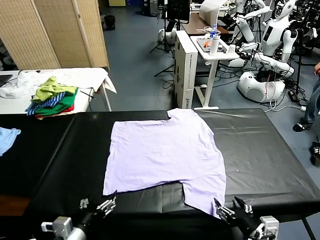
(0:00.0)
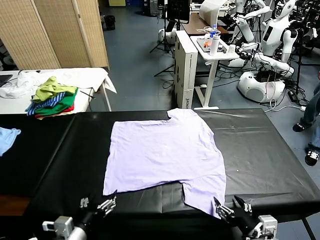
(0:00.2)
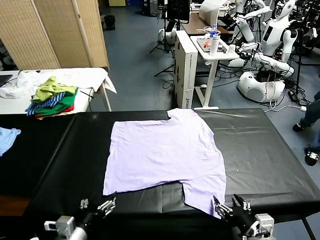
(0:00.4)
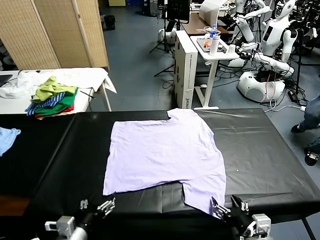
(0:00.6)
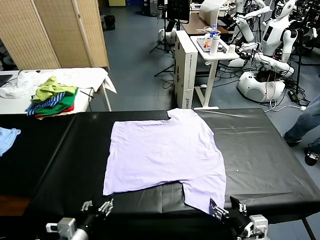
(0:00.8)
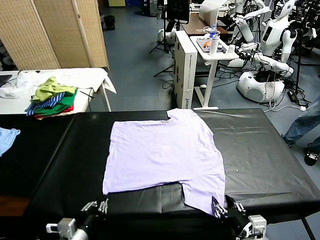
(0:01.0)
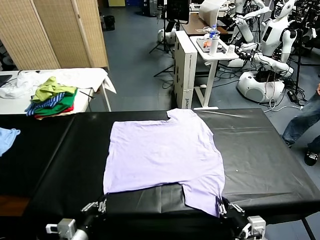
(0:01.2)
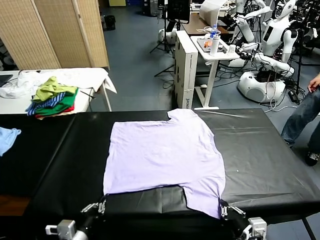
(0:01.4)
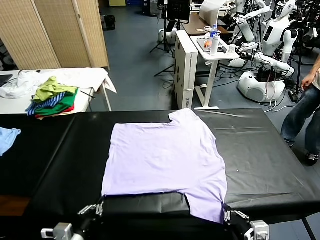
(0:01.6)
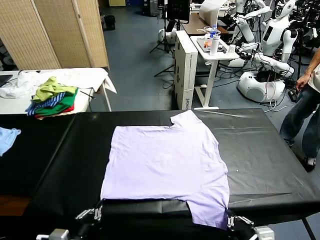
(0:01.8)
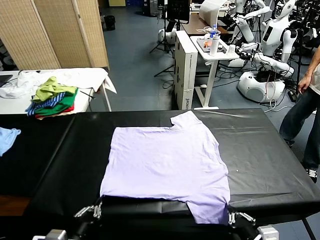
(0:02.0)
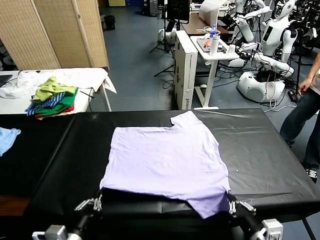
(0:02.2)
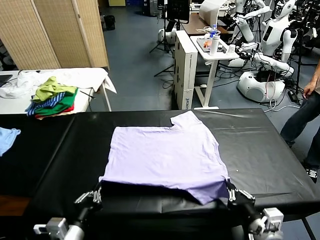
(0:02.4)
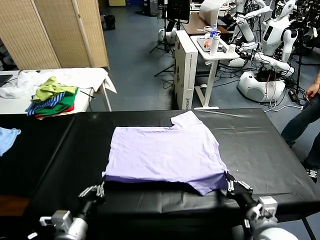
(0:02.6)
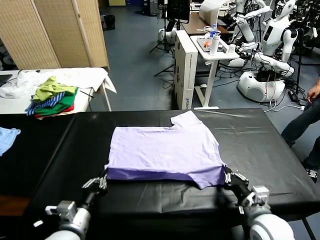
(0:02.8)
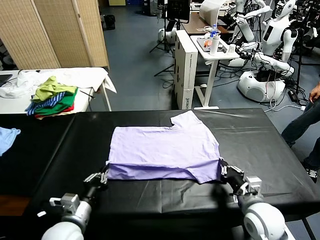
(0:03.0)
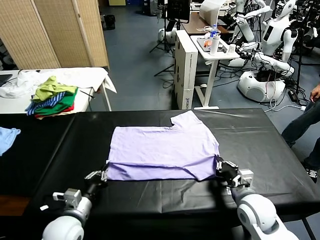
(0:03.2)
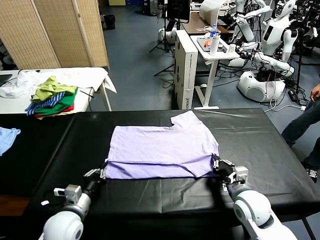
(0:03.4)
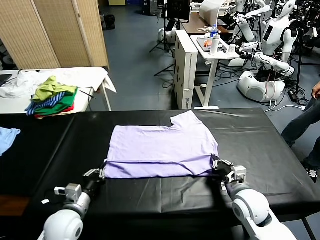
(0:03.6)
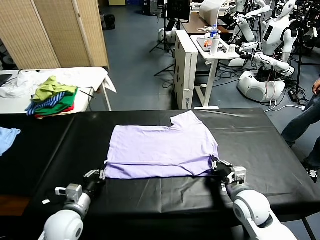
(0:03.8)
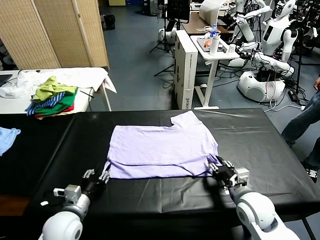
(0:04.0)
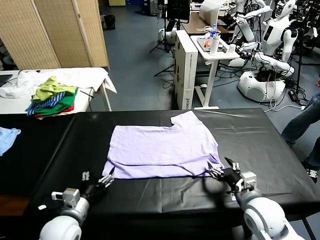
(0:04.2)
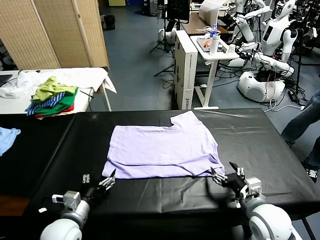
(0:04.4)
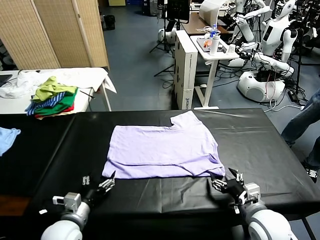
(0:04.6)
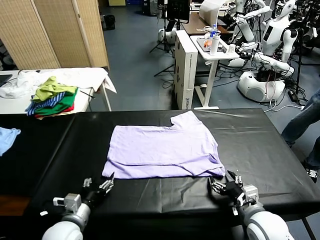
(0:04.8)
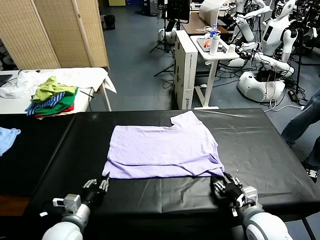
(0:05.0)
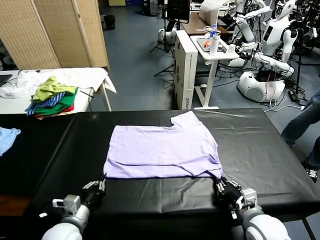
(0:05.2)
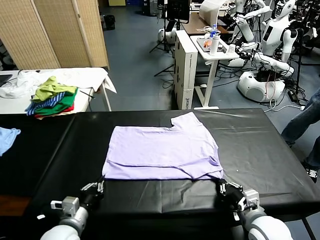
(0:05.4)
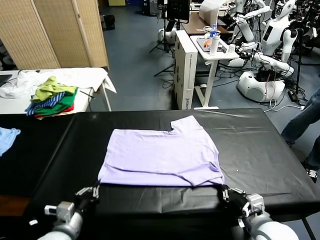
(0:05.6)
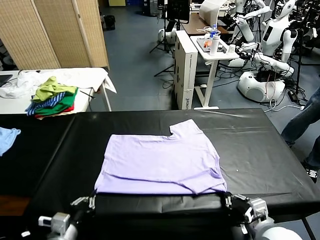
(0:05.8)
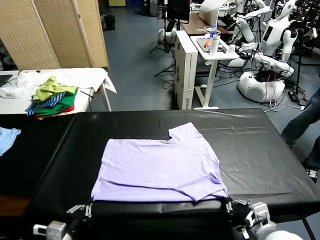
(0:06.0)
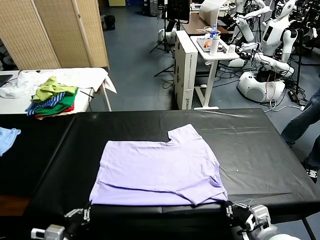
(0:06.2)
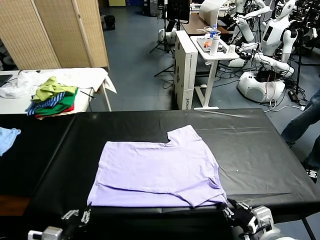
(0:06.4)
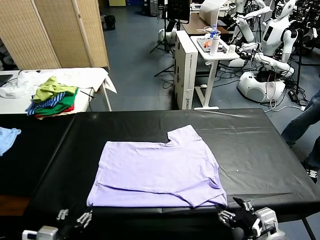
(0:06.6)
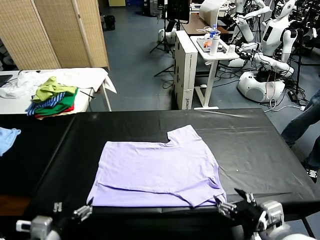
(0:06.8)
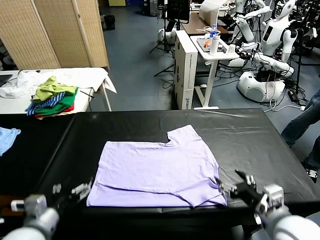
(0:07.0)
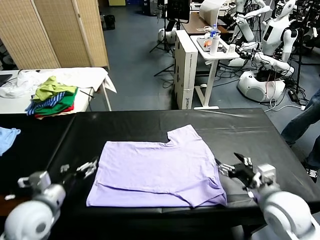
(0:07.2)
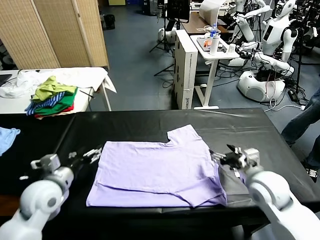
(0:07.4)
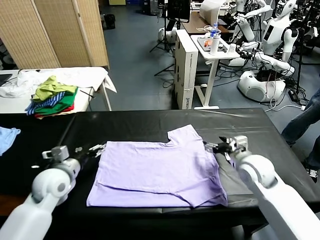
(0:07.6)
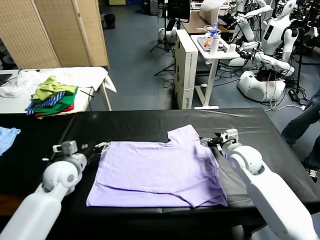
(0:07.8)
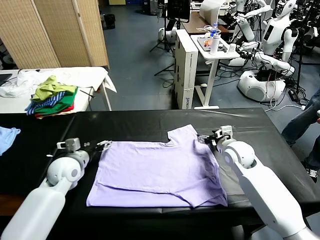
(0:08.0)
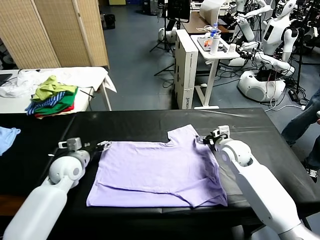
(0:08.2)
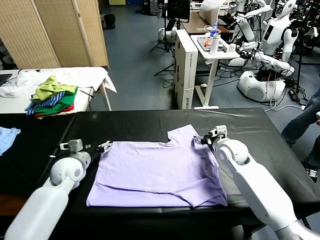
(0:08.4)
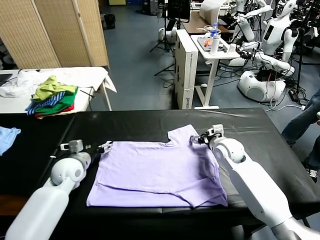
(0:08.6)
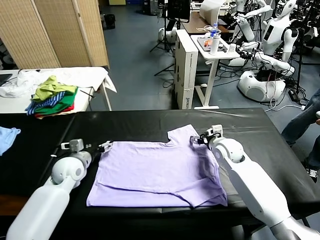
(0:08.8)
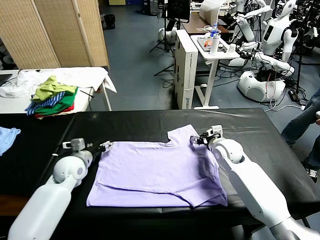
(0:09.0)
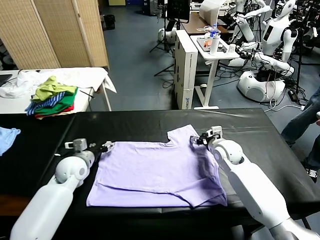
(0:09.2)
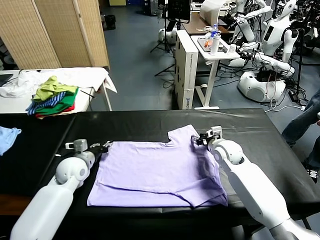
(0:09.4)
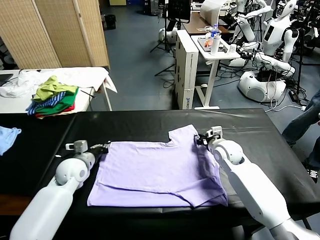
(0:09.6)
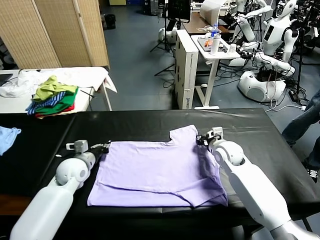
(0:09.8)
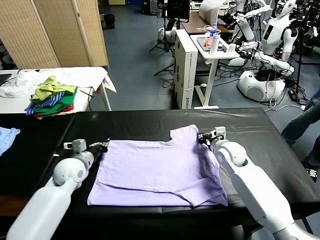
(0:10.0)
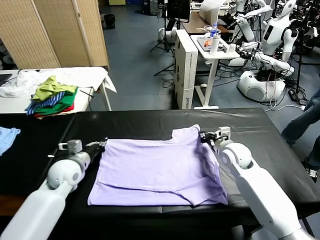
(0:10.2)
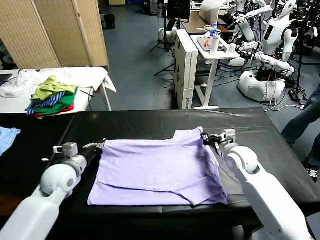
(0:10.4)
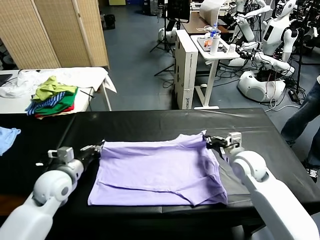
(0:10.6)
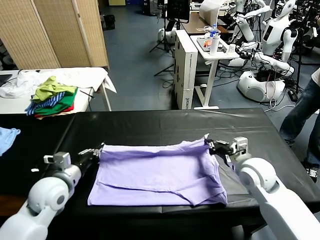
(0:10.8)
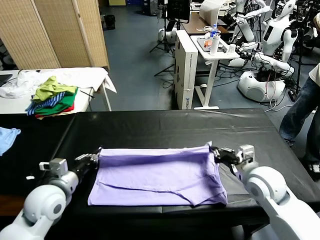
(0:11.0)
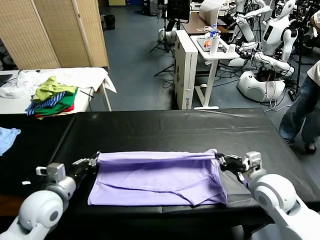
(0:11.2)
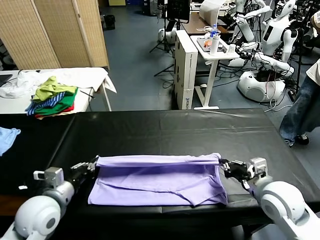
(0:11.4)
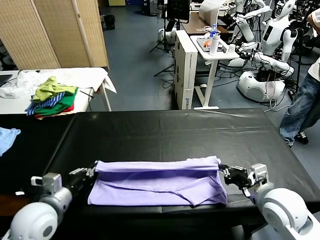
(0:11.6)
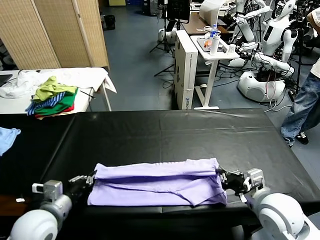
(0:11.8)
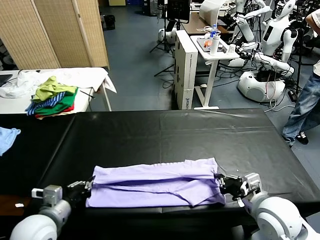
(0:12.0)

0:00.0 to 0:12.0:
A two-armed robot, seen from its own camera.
Task of the whole recording: fold and organize the clothes.
Step, 0:00.0 to 0:01.4: use both grippers simultaneously to clamp the lower edge of the clothing fabric.
Step, 0:01.6 to 0:04.0: use both grippers to drag the lower edge of the fabric forward and fold it over the upper edge.
Step, 0:04.2 to 0:06.6: Drag the clothes downward with both gripper.
Step, 0:06.8 to 0:10.0: use both grippers simultaneously to clamp the upper edge of the clothing fabric.
0:01.6 to 0:03.0: The right gripper shifts some 20 cm forward. Meanwhile the left gripper is displaced forward by roughly 10 cm.
0:03.0 to 0:04.4: The right gripper travels backward by roughly 5 cm, and opens its fingers. The left gripper opens up.
0:04.4 to 0:06.0: Both grippers move backward, some 10 cm. The right gripper closes its fingers. Meanwhile the left gripper closes.
0:06.0 to 0:07.6: Both grippers travel together forward, some 25 cm. The right gripper opens. Meanwhile the left gripper opens.
0:07.6 to 0:09.0: The right gripper changes place by some 5 cm; the left gripper goes approximately 5 cm forward.
0:09.0 to 0:10.4: The two grippers go approximately 5 cm backward. The left gripper closes its fingers. The right gripper closes its fingers.
0:10.4 to 0:12.0: The two grippers go some 15 cm backward.

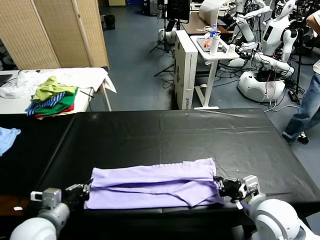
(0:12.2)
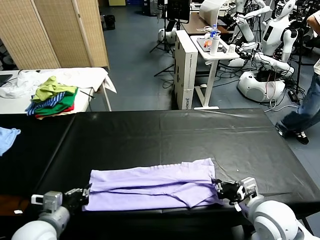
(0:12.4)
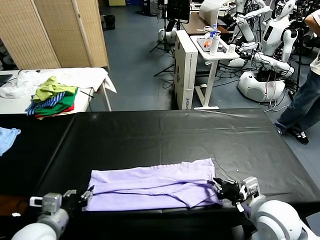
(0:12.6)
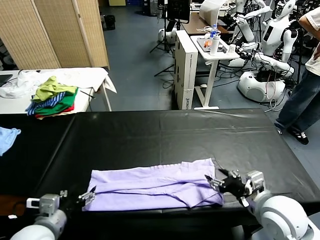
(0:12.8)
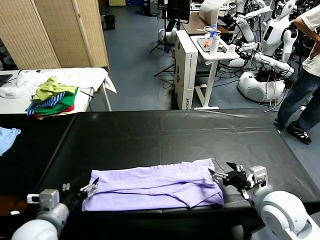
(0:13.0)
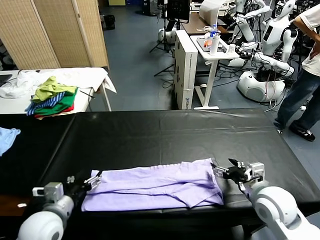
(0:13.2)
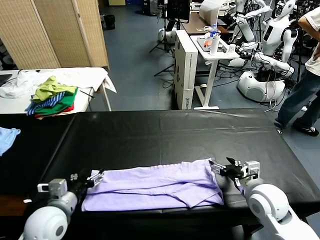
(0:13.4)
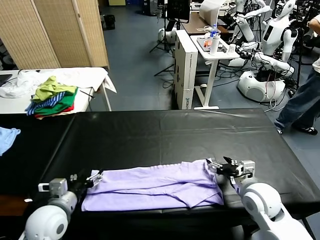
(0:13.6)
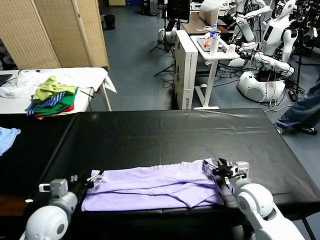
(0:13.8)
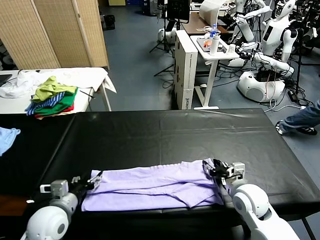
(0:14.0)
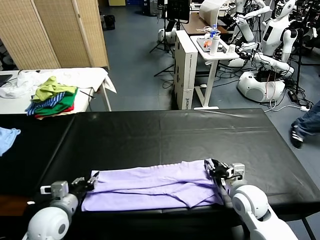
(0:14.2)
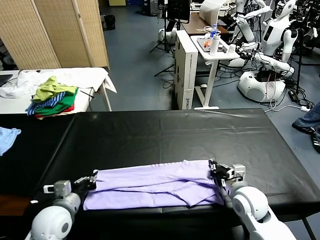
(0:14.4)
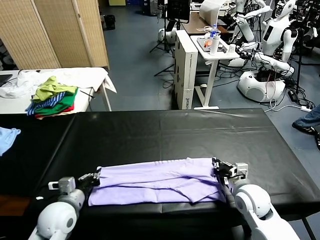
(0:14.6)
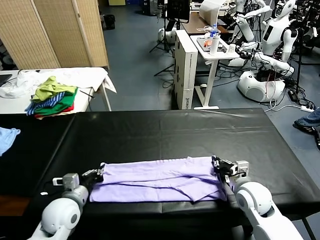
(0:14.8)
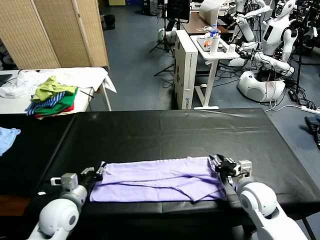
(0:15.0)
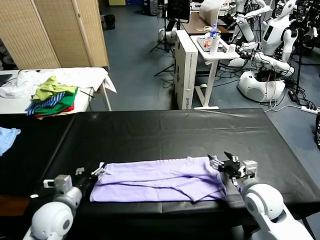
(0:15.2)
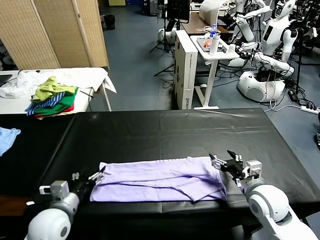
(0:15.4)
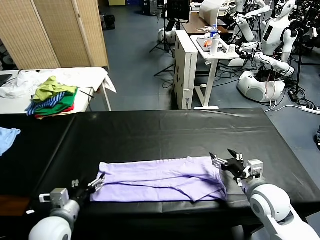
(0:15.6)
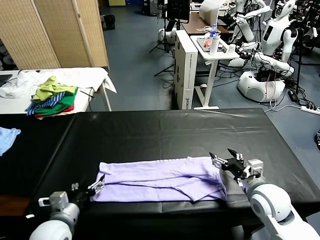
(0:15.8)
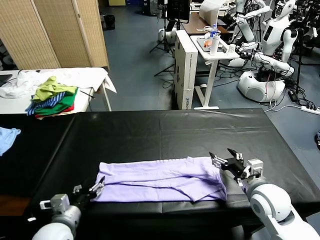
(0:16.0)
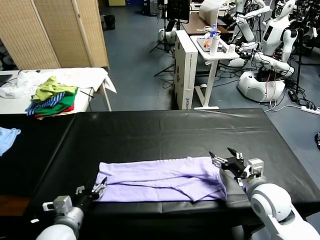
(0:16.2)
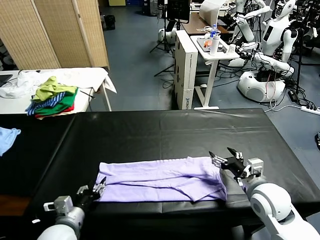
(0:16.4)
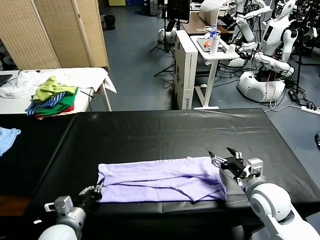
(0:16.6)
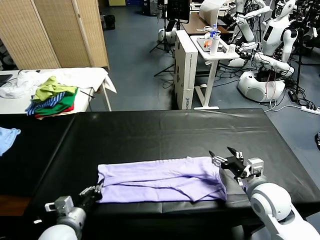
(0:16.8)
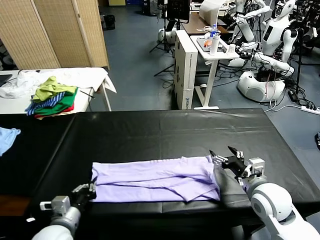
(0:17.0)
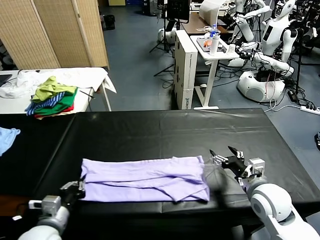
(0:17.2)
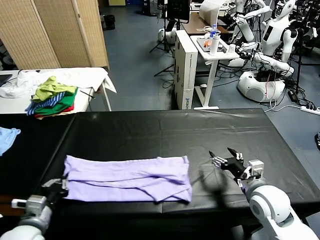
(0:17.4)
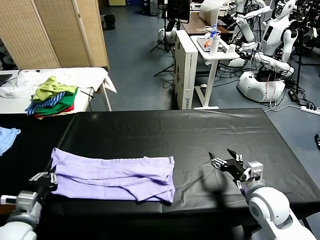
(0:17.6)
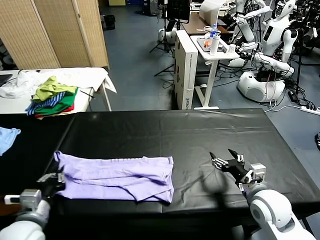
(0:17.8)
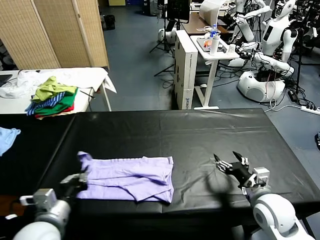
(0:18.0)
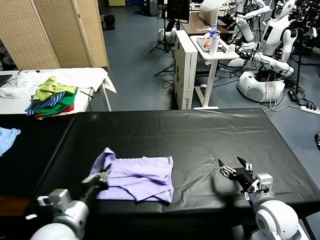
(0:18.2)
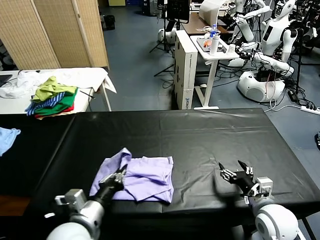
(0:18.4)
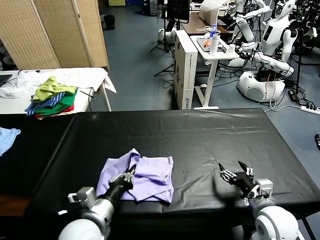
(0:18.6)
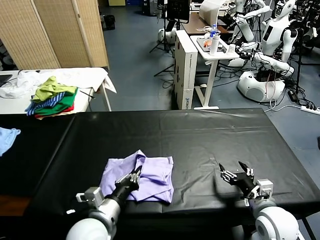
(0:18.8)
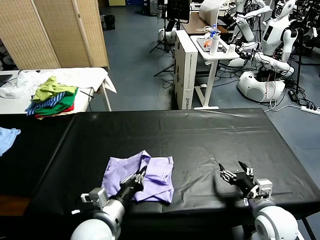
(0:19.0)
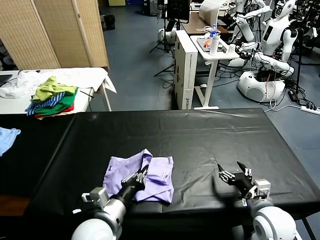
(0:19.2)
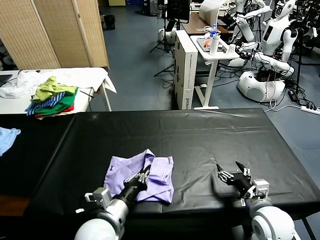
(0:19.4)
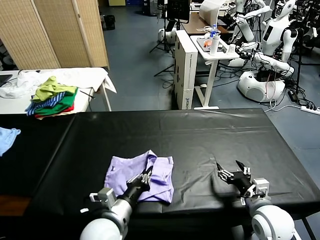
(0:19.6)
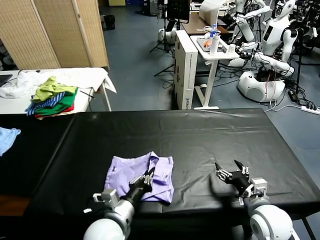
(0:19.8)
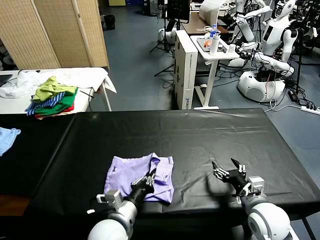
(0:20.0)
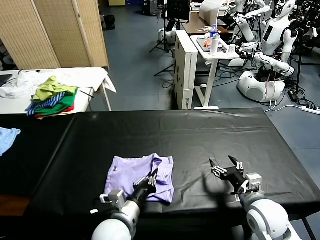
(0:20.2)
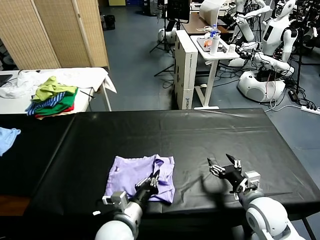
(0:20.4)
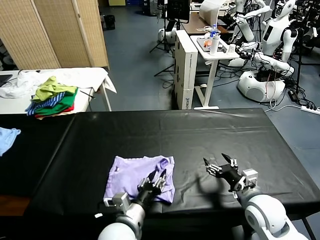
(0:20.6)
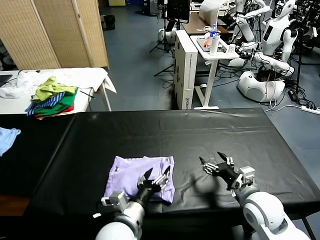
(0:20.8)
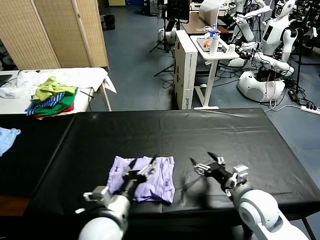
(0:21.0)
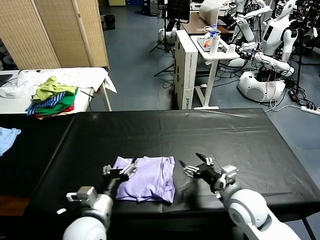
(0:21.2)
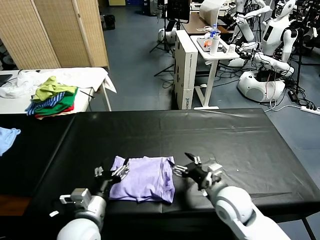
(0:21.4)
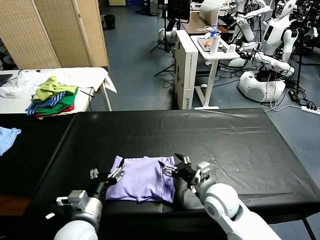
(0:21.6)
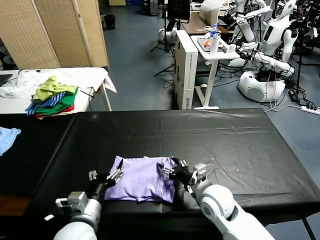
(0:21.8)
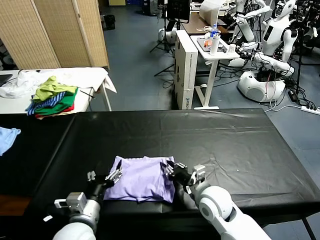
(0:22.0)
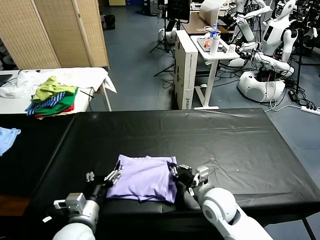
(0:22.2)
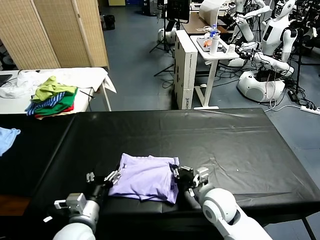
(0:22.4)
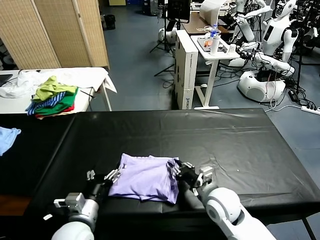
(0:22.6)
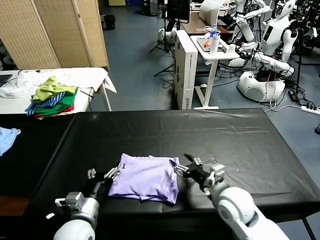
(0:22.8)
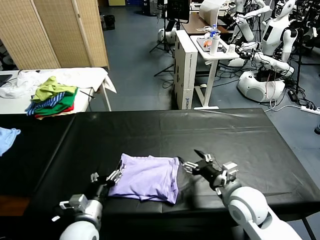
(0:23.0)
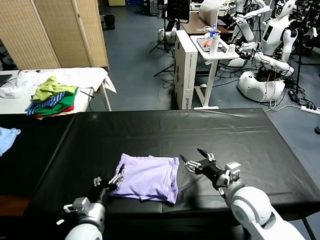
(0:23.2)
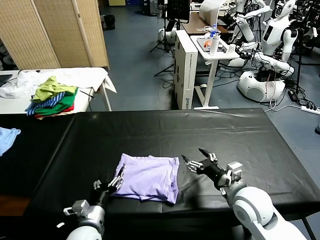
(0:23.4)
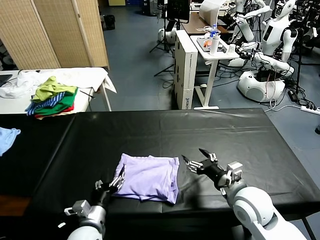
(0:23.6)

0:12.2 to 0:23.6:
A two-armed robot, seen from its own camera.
Task of the whole recording: fold and organize the clothes.
Step, 0:12.8 to 0:16.8: use the left gripper to clamp the left edge of the fabric.
Step, 0:17.0 to 0:20.6: use the left gripper to drag the left edge of the fabric to the left and folds it over the right edge.
0:12.2 to 0:13.6: The right gripper shifts roughly 5 cm forward, and opens up. Meanwhile the left gripper opens its fingers.
0:13.6 to 0:15.0: The right gripper closes and opens again, while the left gripper closes its fingers.
0:15.0 to 0:16.4: The left gripper moves backward, roughly 5 cm, and opens, then closes again.
0:16.4 to 0:17.8: The left gripper travels upward by roughly 5 cm, and closes up.
0:17.8 to 0:19.4: The left gripper travels to the right by some 15 cm.
0:19.4 to 0:20.8: The left gripper opens.
0:20.8 to 0:22.2: The grippers both shift to the left by roughly 10 cm. The right gripper closes its fingers.
0:22.2 to 0:23.6: The right gripper is displaced to the right and upward by roughly 10 cm, and opens; the left gripper moves downward, roughly 10 cm.
